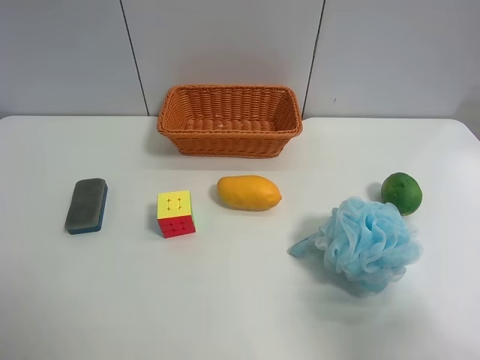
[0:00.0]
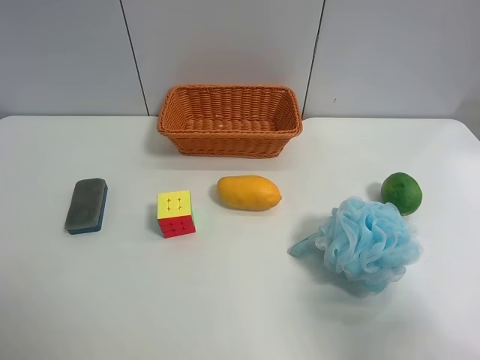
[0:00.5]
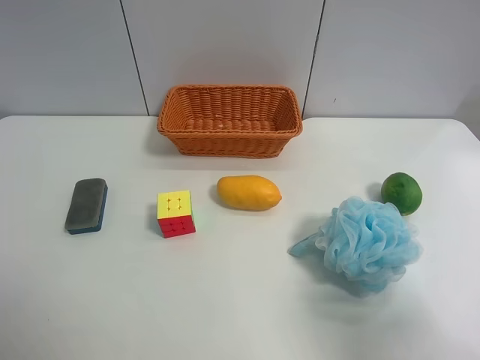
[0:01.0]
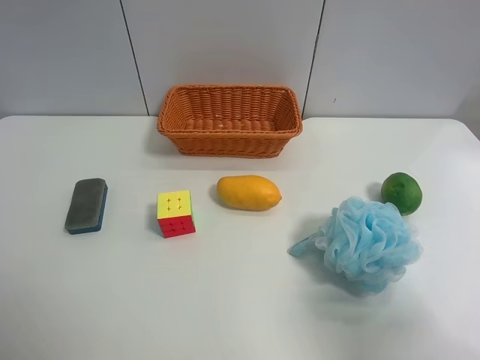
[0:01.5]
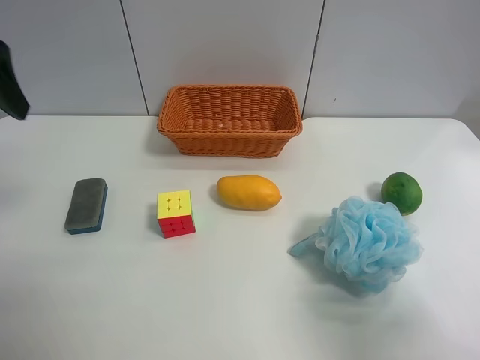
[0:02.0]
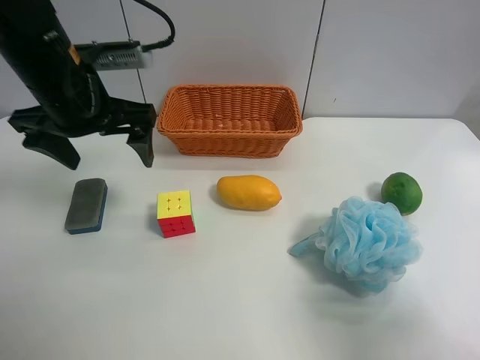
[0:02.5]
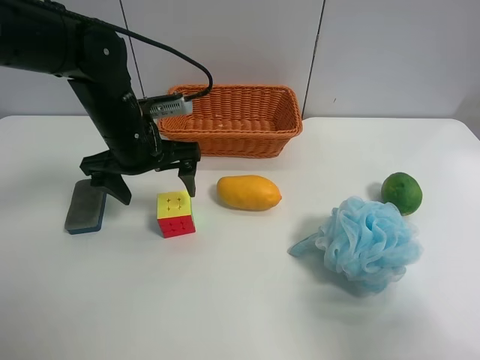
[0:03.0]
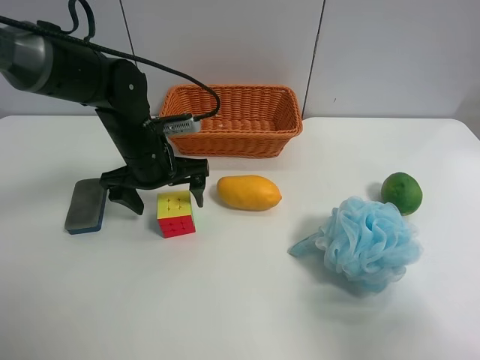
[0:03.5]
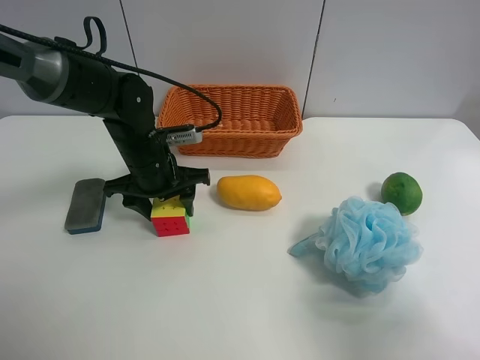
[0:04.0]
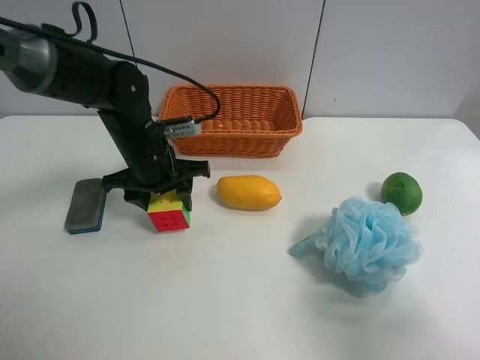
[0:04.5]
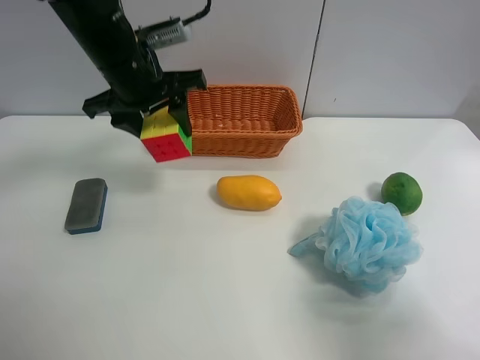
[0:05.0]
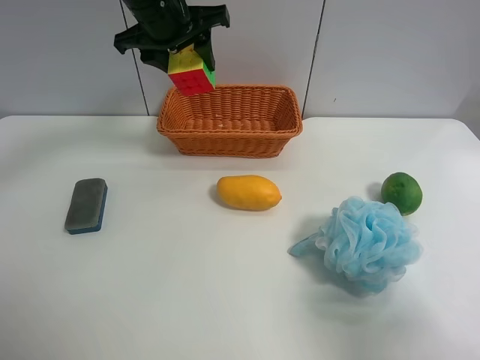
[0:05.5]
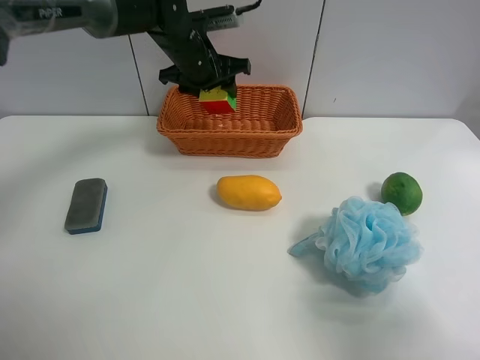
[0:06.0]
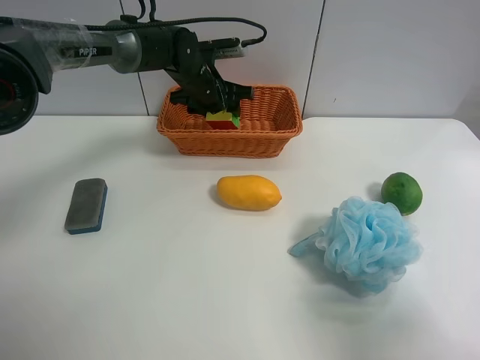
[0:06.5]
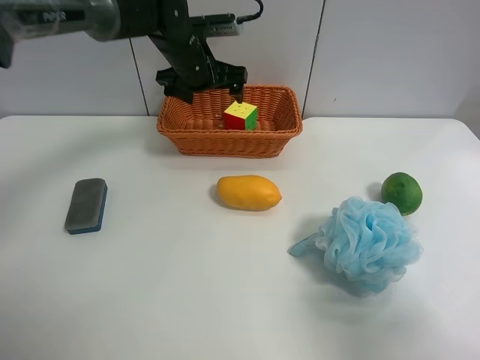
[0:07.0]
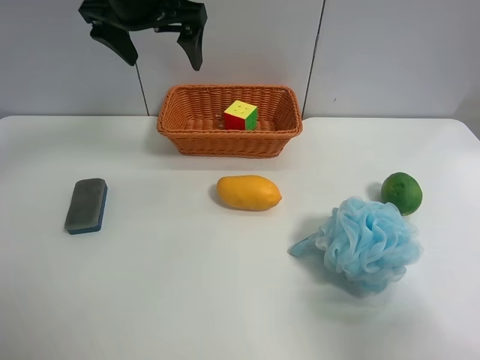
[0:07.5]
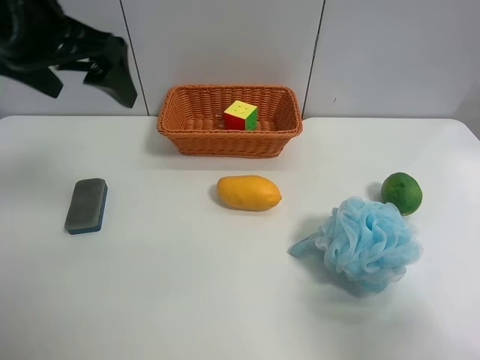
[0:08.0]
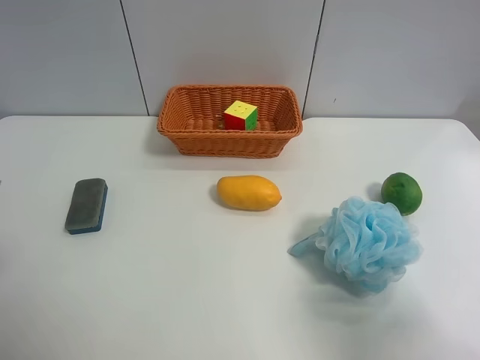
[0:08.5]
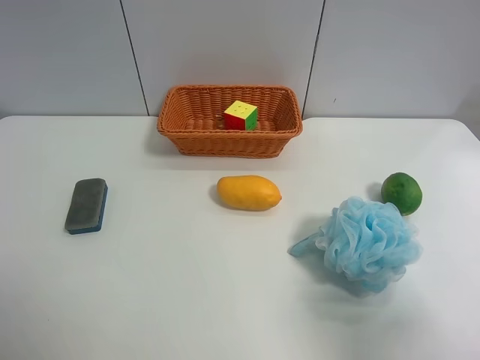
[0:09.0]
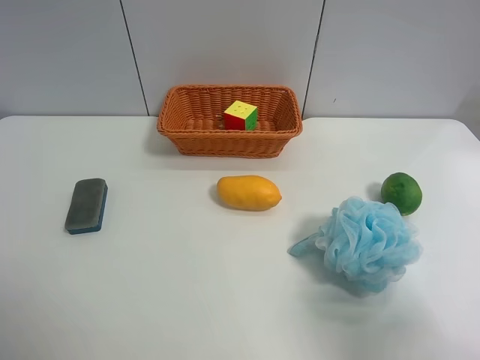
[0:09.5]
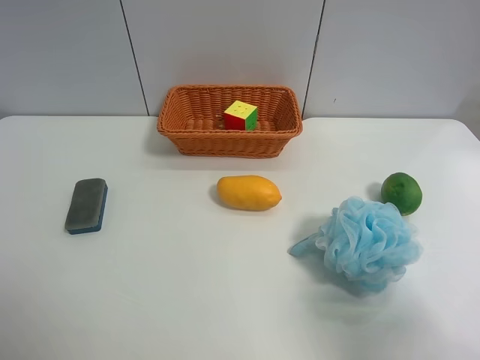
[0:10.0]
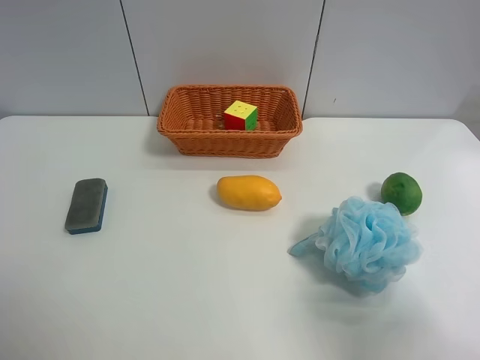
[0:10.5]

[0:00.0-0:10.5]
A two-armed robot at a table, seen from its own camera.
Task of the whole recording: use the left gripper to grab items from the table and place them in the basket.
Step, 0:00.0 to 0:04.0: Grasp the Rubik's Cube with the left gripper.
Step, 0:04.5 to 0:06.5: Place the Rubik's Cube into the basket with the left gripper.
0:00.0 to 0:02.0: The left gripper moves forward, about 25 cm.
0:02.0 to 0:04.0: The left gripper heads downward, to the right and forward, covering about 30 cm, and closes up.
0:04.0 to 0:06.5: The left gripper shifts about 15 cm forward, and reaches about 20 cm upward, then returns.
0:06.5 to 0:08.5: The left gripper goes approximately 40 cm backward and to the left, and opens up.

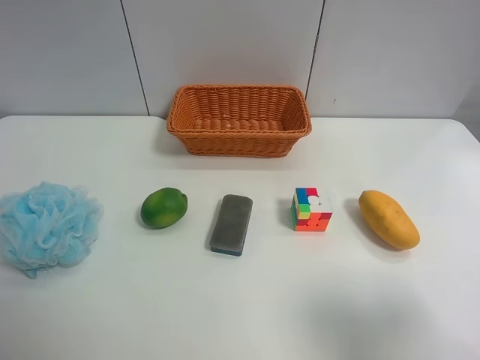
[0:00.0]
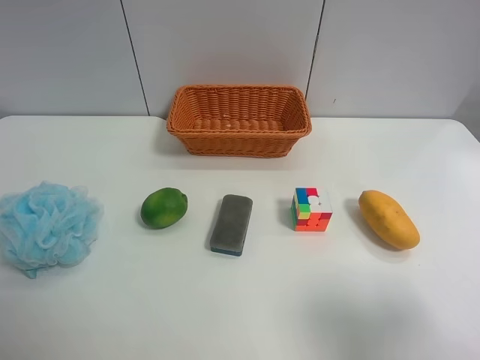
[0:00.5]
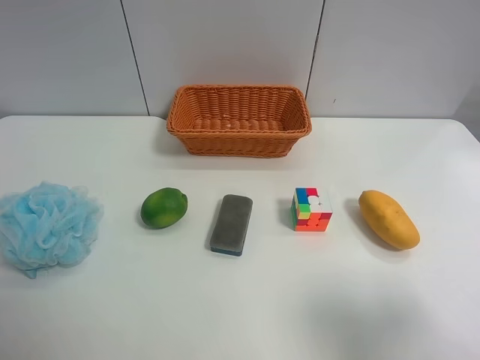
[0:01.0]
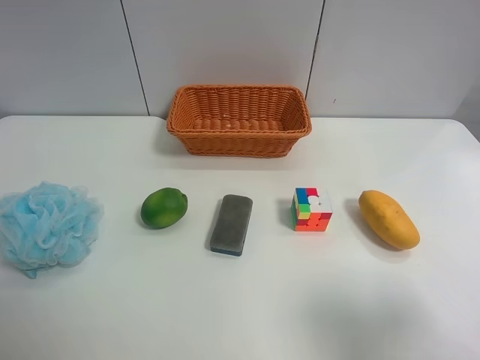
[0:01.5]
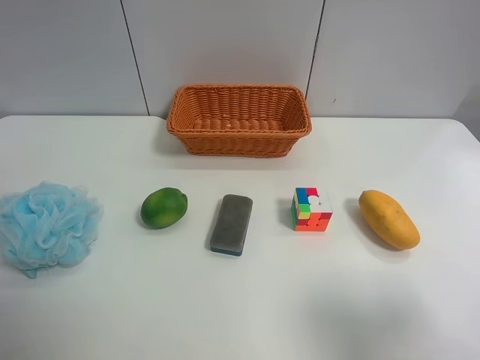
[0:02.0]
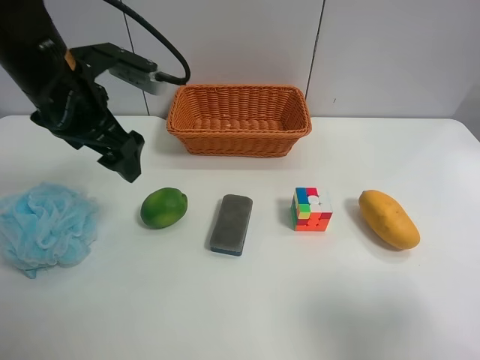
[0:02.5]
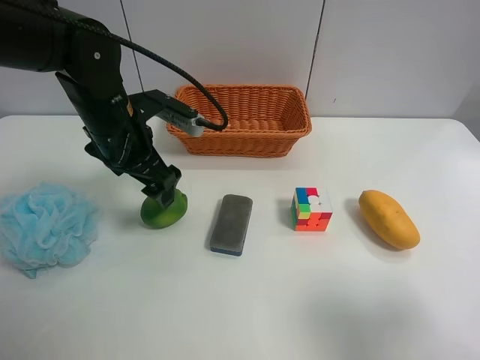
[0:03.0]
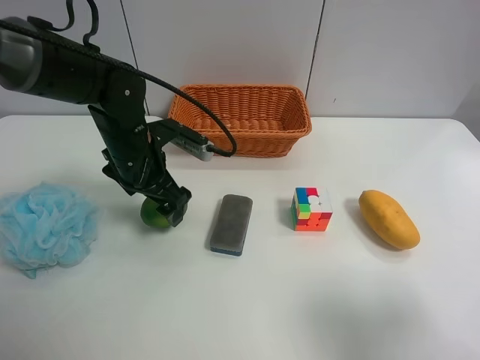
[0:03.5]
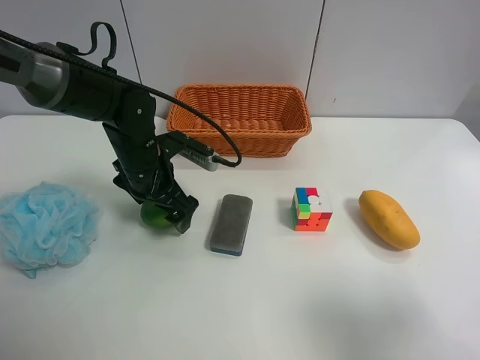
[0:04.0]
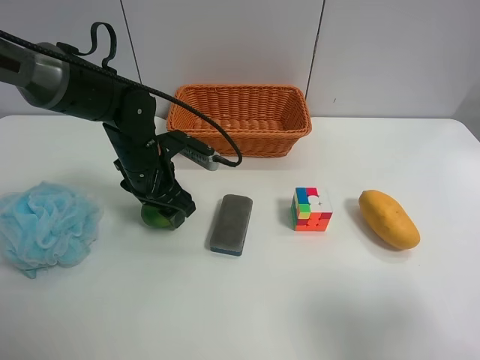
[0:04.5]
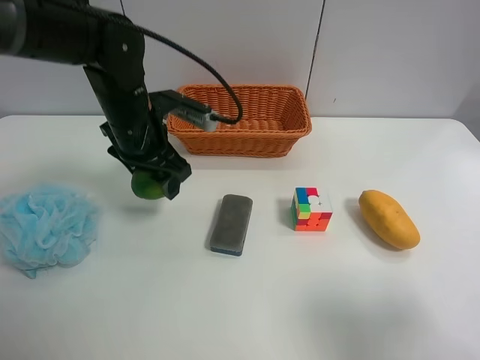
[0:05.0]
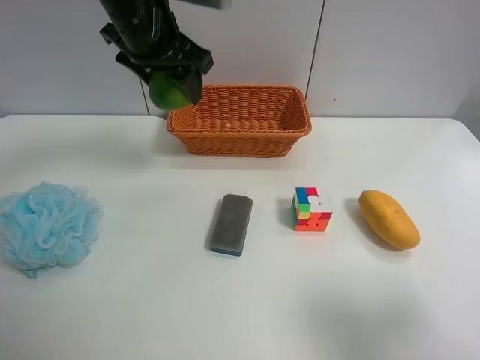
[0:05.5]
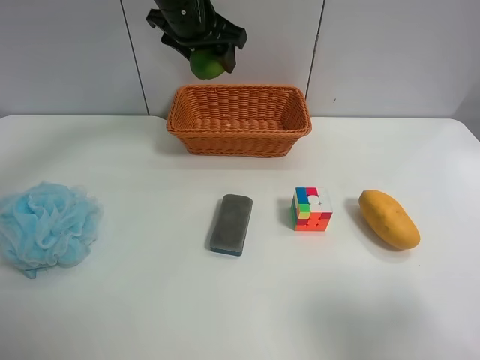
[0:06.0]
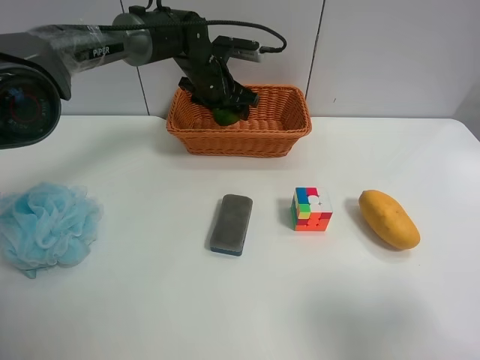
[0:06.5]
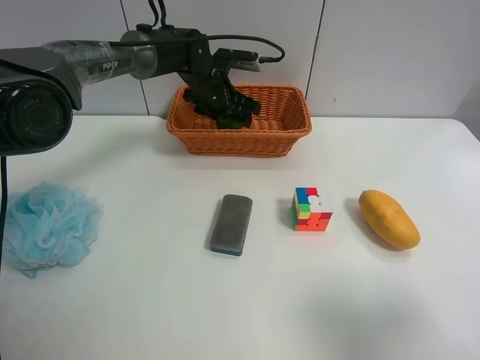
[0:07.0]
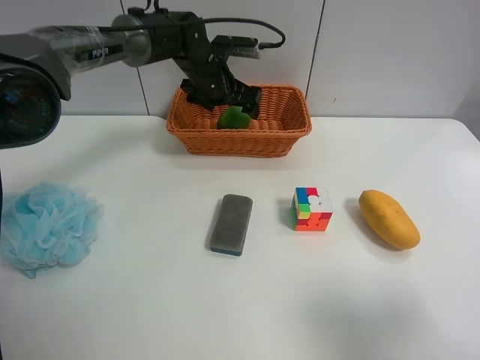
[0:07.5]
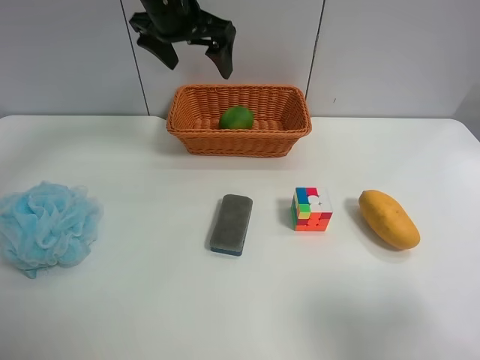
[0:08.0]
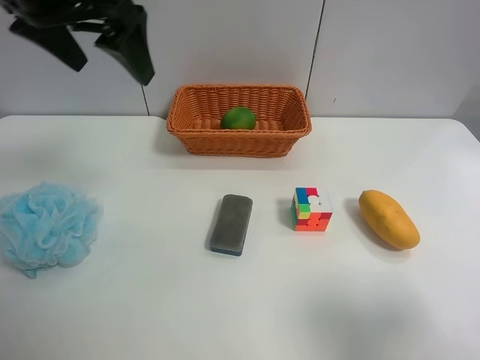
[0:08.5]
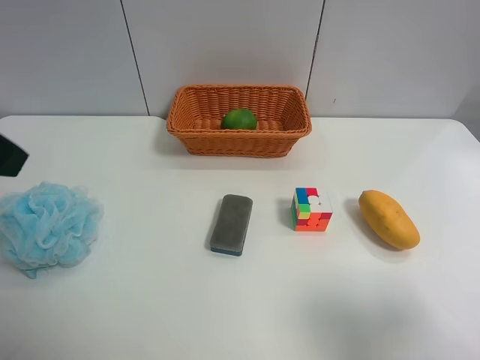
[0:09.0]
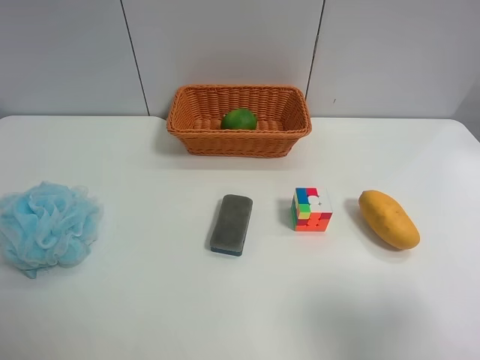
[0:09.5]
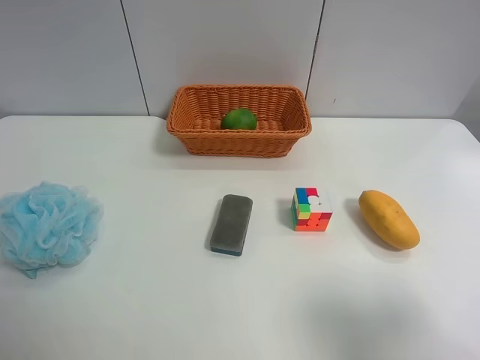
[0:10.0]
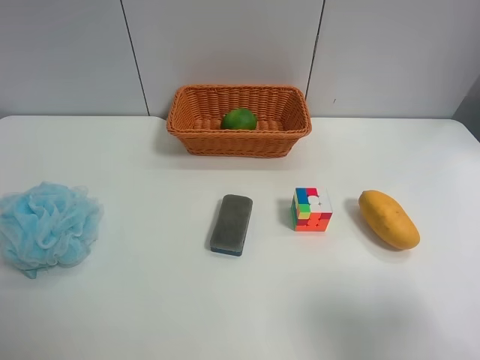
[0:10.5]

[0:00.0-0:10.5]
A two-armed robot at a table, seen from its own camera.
Task of the whole recording: use the left gripper to grab items from the table and place them in the basket.
Step, 0:00.0 to 0:04.0: Grasp the apple rubber puff with the left gripper.
Step, 0:04.5 to 0:07.0: Place the apple rubber puff into the basket with the left gripper.
0:02.0 to 0:04.0: The left gripper goes some 30 cm downward, to the right and forward.
0:04.0 to 0:06.5: The left gripper is displaced forward and to the right by some 20 cm, reaches roughly 20 cm upward, then returns, and closes.
0:06.5 to 0:08.5: The left gripper moves backward, upward and to the left, roughly 30 cm, and opens its fingers.
0:08.5 to 0:10.5: The left gripper travels backward and to the left by some 30 cm.
